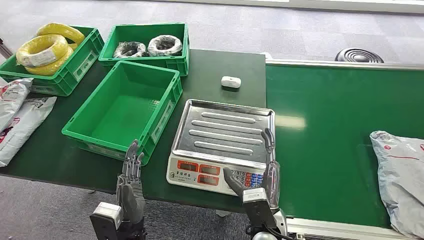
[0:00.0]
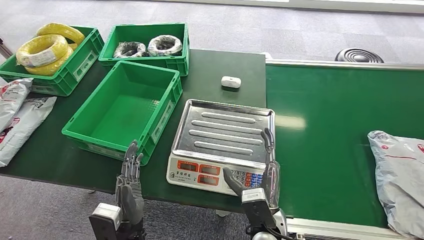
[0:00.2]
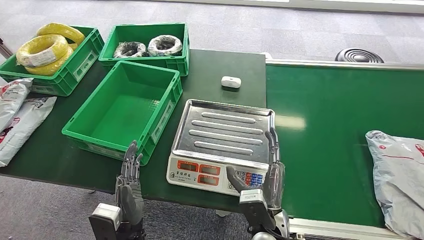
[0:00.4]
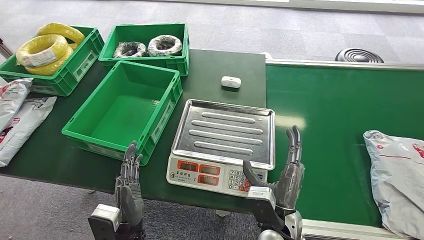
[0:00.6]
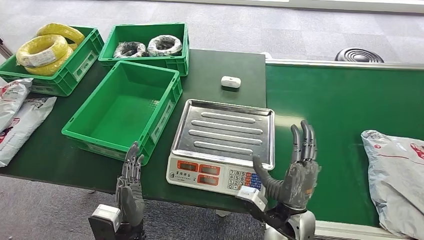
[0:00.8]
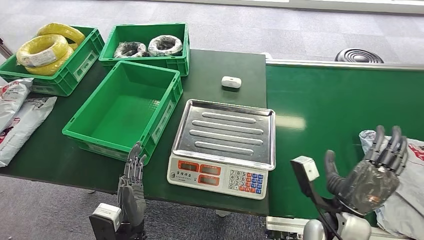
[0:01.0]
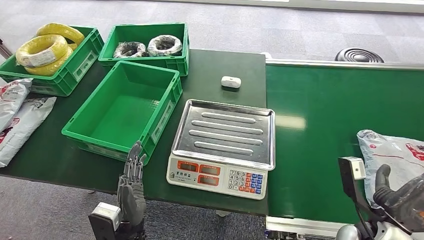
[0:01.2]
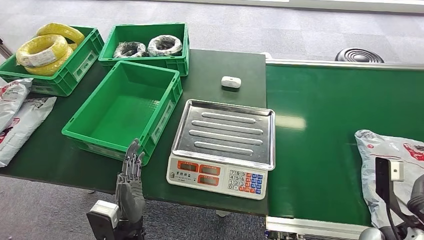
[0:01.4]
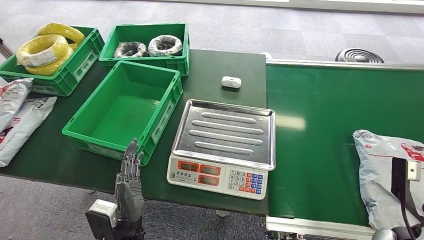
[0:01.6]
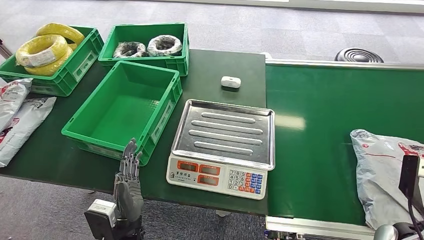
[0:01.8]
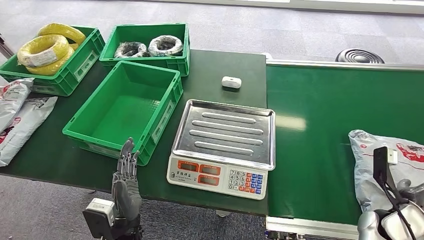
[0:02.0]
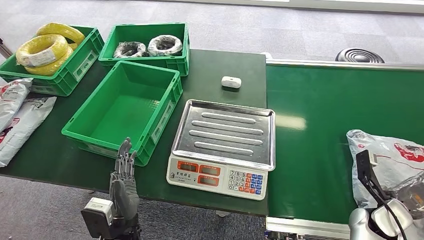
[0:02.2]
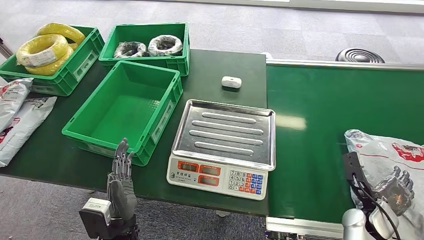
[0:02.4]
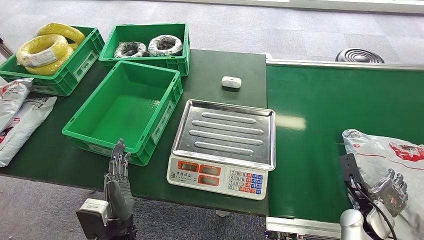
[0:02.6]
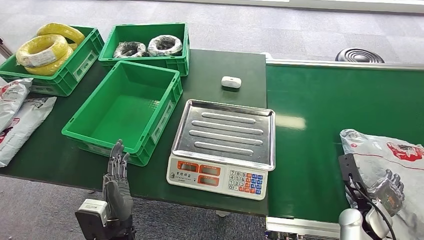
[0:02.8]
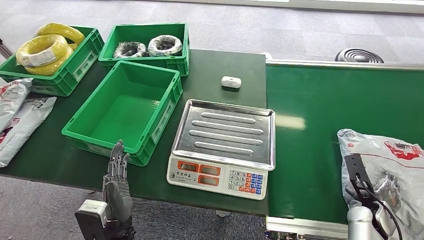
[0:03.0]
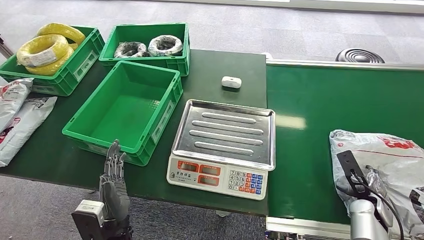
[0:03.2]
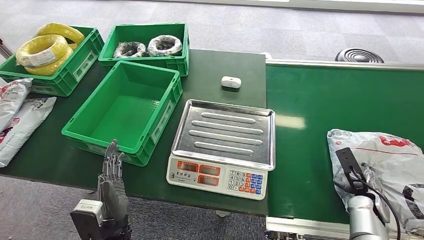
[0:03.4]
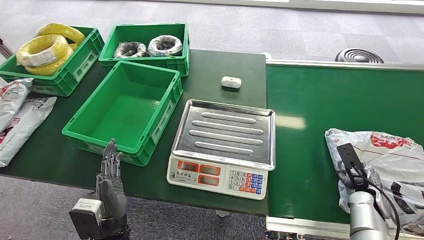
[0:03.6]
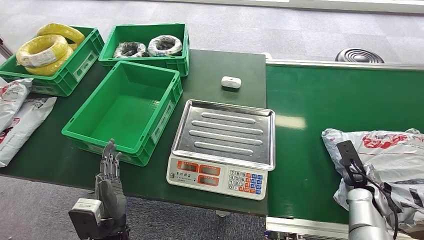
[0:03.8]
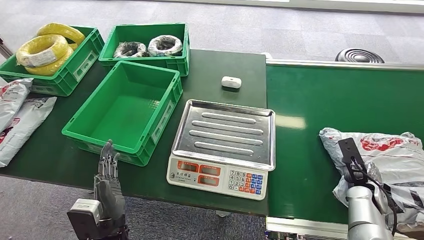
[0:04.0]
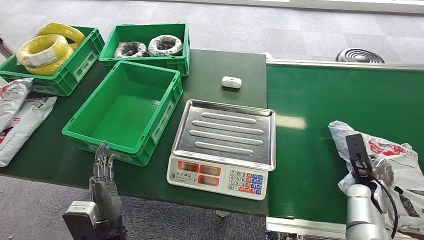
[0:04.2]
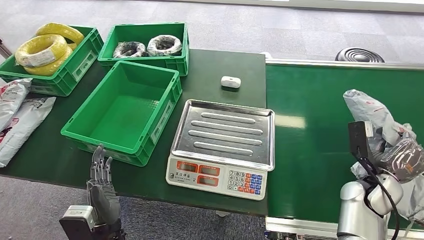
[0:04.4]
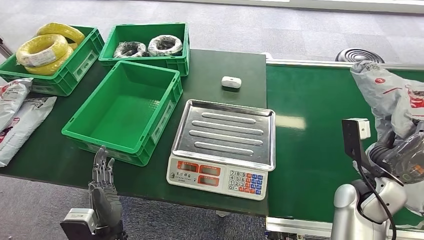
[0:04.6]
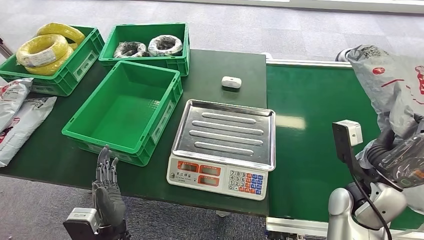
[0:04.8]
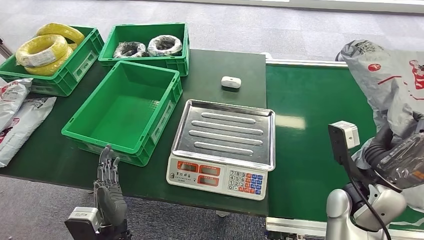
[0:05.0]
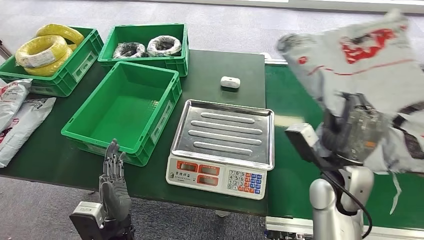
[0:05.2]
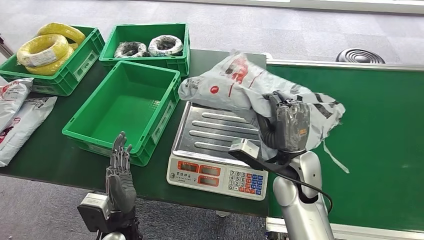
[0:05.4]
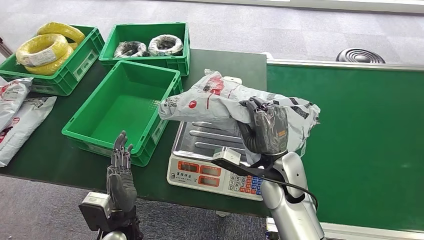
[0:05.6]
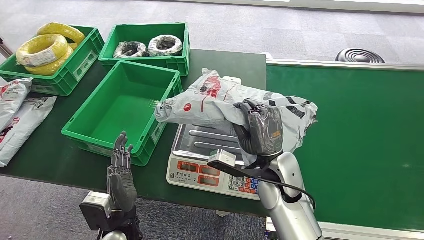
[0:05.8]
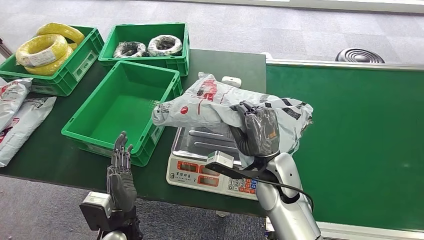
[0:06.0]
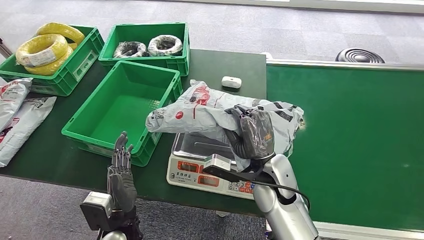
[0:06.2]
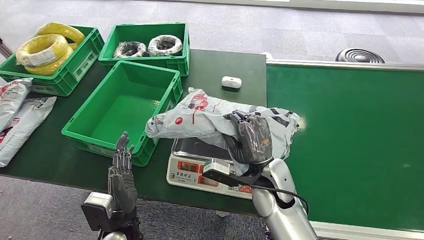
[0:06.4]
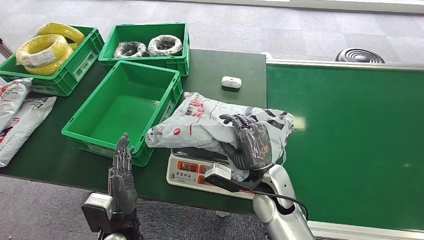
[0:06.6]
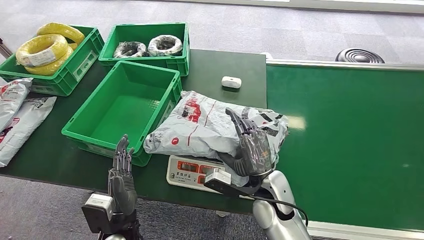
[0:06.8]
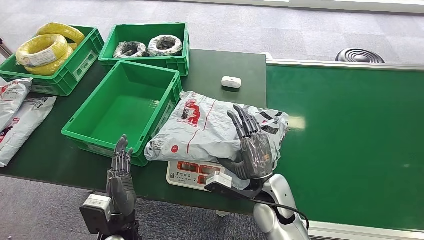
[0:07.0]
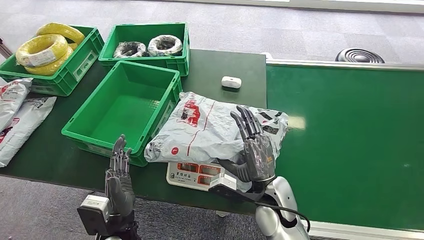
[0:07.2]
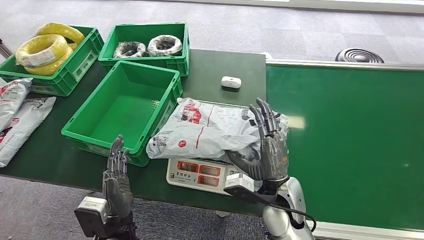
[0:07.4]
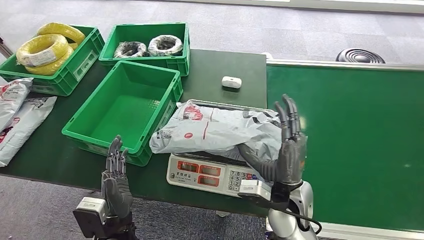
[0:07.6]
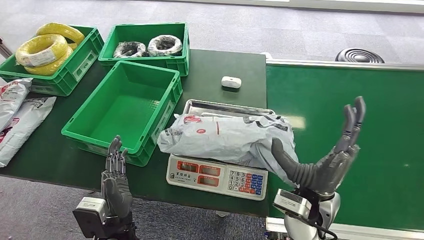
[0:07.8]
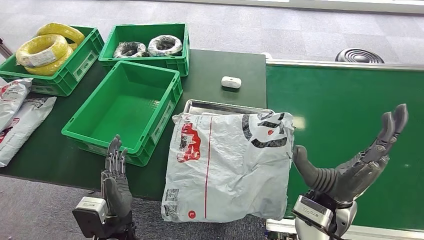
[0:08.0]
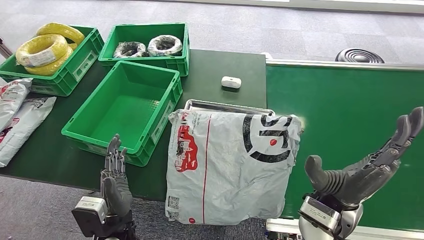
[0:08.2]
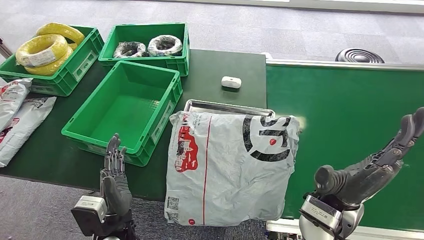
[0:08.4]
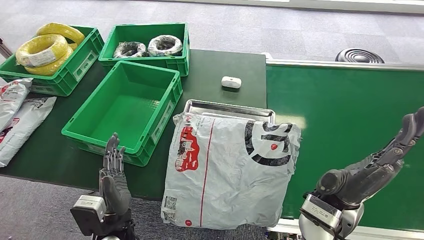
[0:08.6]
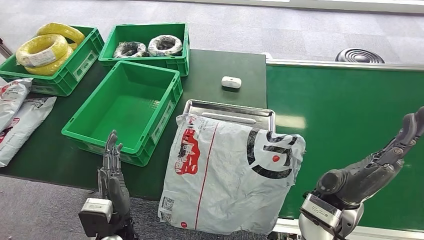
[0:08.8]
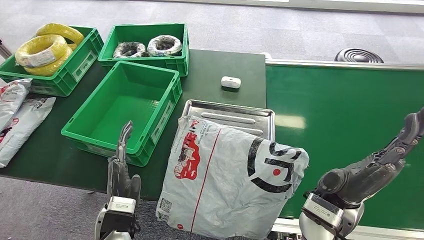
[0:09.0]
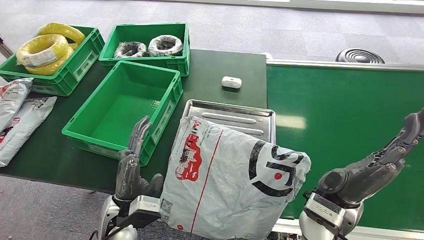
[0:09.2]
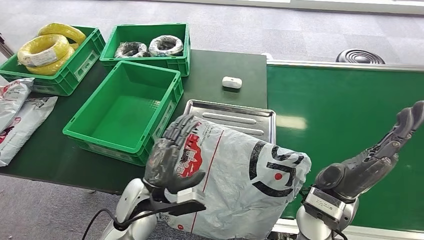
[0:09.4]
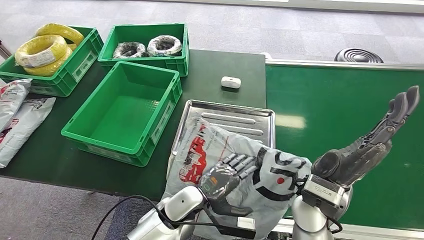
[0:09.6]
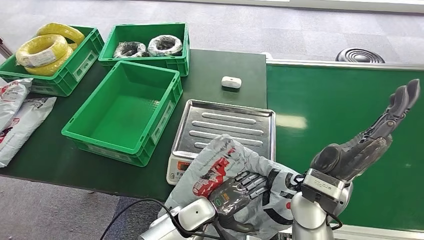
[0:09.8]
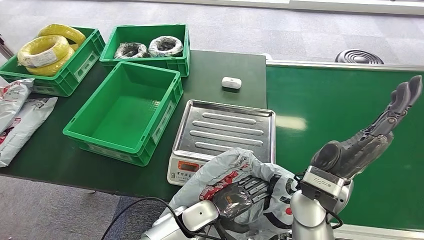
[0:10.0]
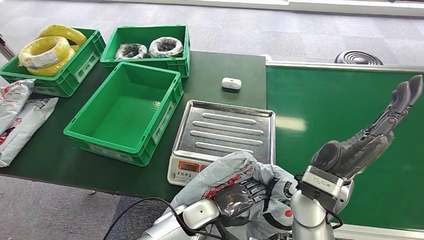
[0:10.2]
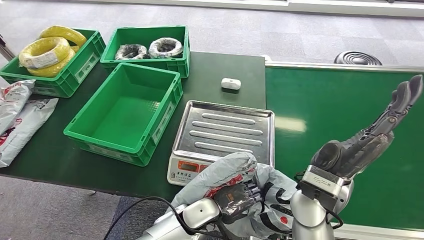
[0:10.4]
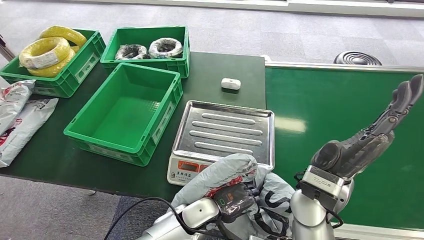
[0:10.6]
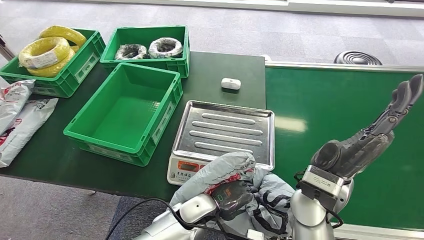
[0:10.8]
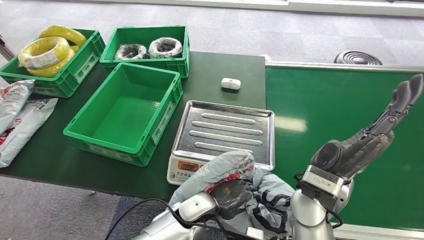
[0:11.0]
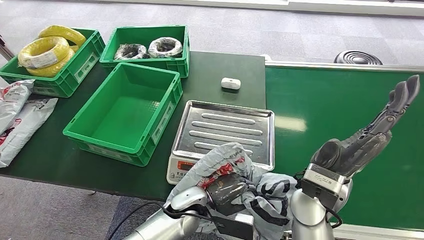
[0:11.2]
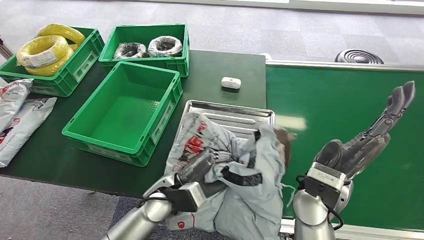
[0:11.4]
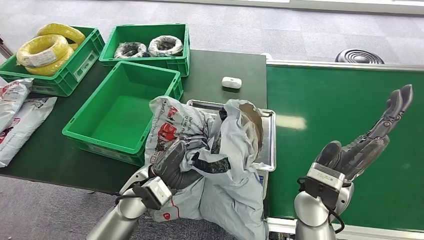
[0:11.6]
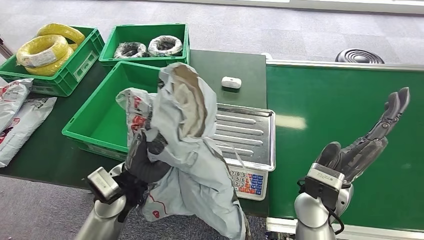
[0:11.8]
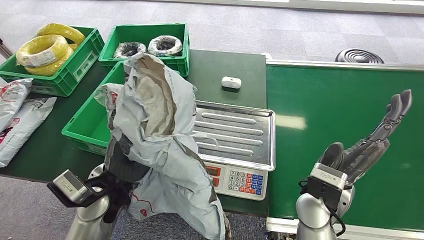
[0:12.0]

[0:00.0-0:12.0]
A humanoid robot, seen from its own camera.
Step, 0:00.0 to 0:04.4: Pick up the package from the conveyor belt.
Step, 0:04.8 to 0:08.2: Place the package onto the inbound machine.
0:01.6 to 0:03.0: The right hand heads downward and forward, covering some 10 cm.
0:03.0 to 0:04.4: The right hand shifts about 10 cm upward.
0:06.0 to 0:07.6: The right hand shifts by approximately 5 cm.

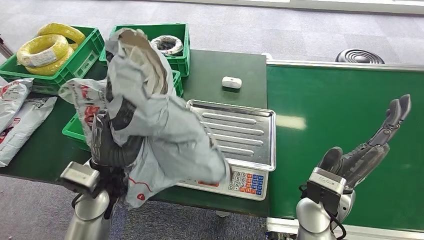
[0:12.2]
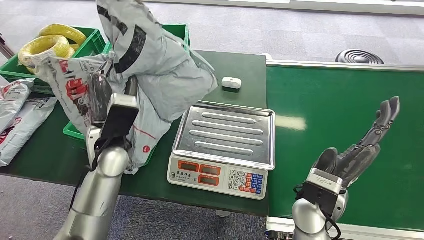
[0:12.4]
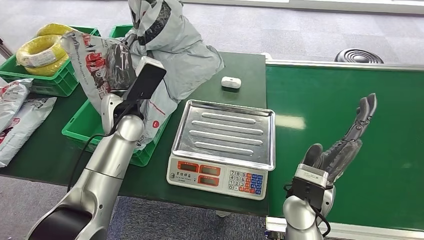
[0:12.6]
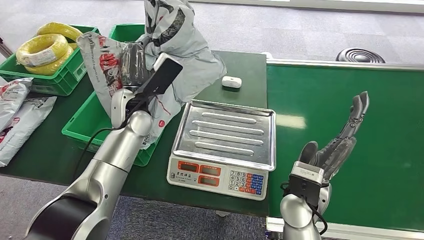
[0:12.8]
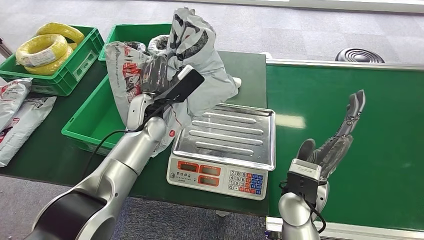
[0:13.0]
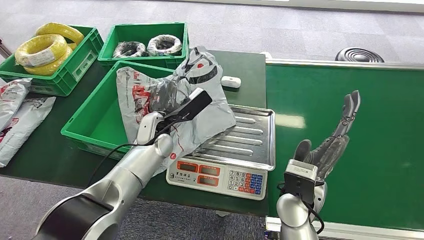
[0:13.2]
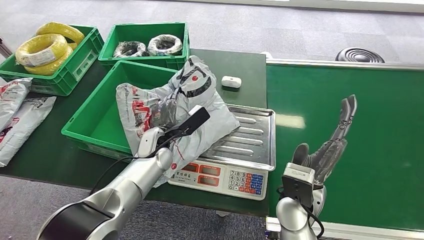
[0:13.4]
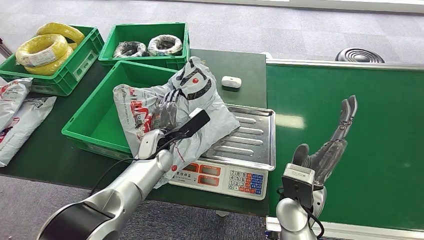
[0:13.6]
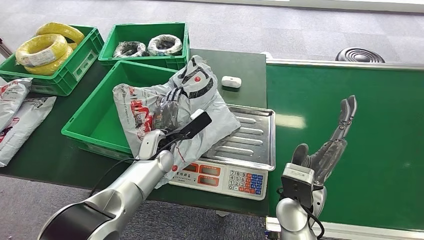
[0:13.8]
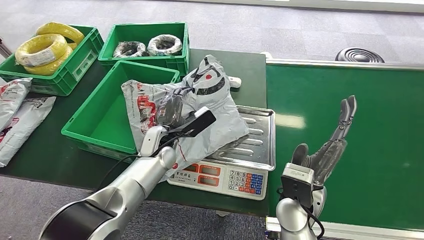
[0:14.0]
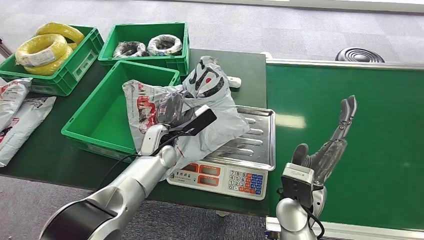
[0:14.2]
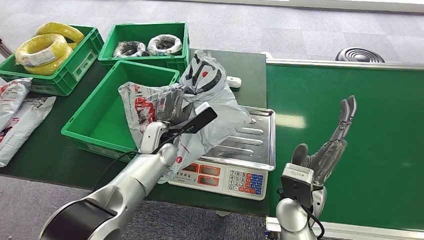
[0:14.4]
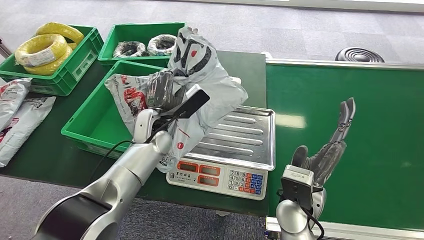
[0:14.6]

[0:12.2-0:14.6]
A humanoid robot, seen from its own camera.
Step, 0:12.6 to 0:14.6: Place the package into the parcel locker.
0:13.4 to 0:14.6: The left hand heads upward, covering roughly 5 cm.

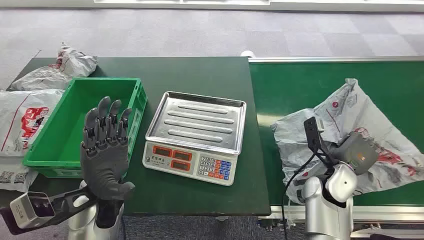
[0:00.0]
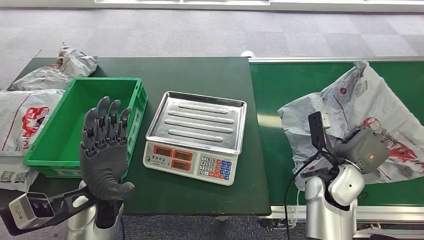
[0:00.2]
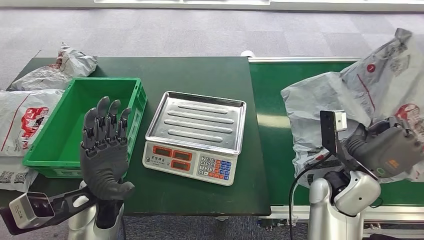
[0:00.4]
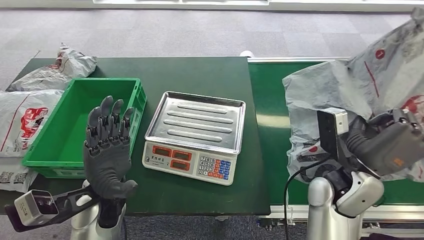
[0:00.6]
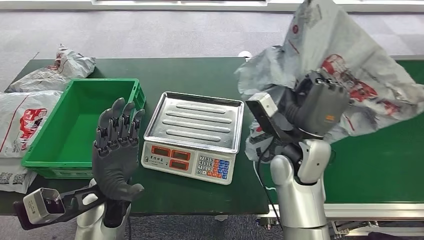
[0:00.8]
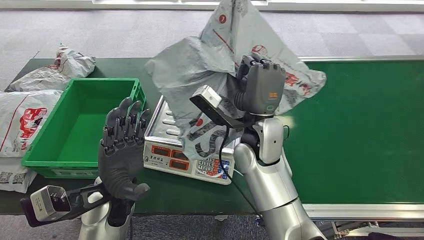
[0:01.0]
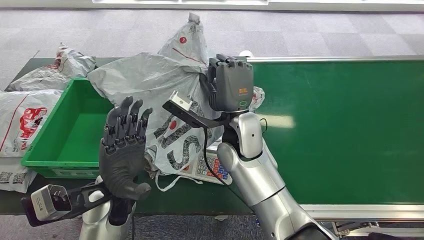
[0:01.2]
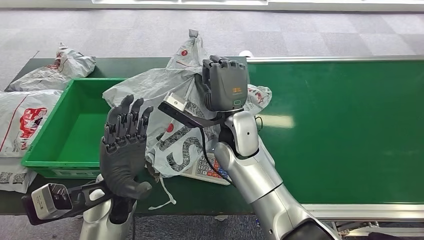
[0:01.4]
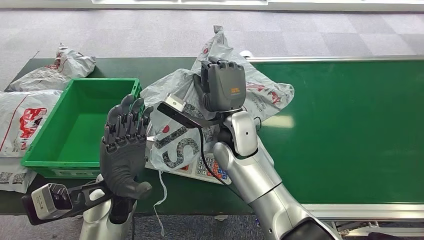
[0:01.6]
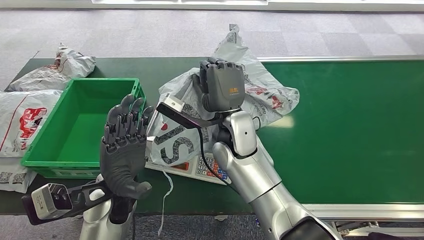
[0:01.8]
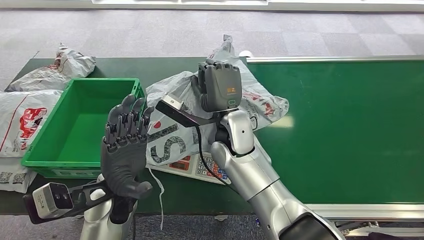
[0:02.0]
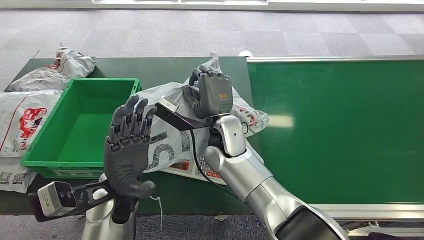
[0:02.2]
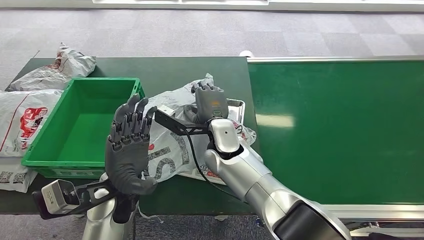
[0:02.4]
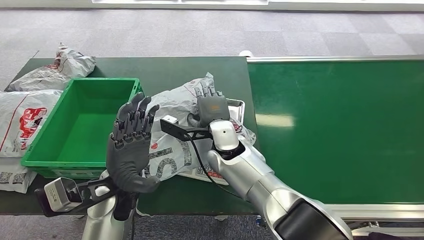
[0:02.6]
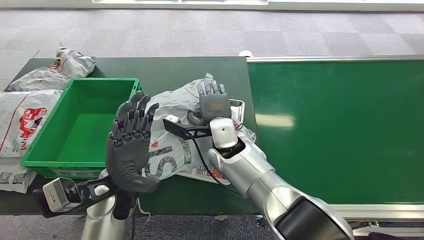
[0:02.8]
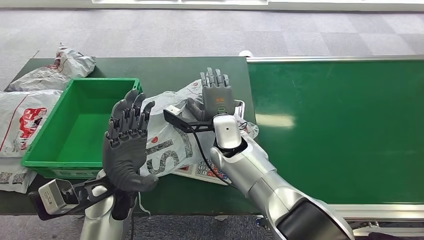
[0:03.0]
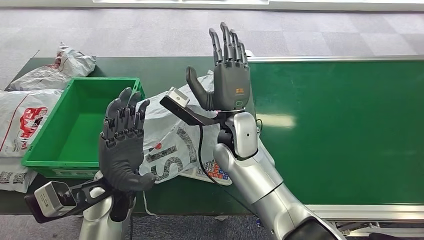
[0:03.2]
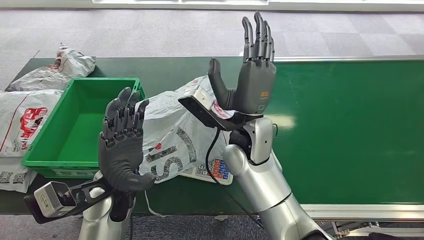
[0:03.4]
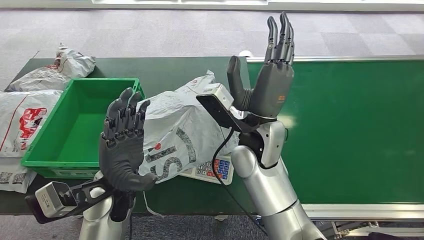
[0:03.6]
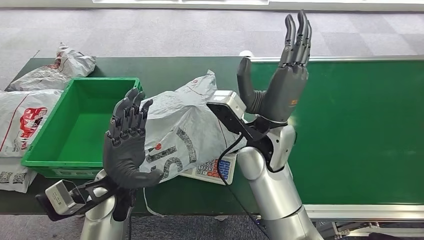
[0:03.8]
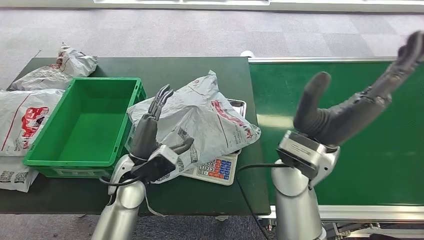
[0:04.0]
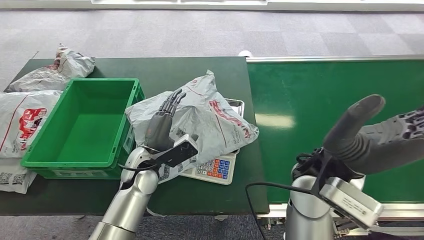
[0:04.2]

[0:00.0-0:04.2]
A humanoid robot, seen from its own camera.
Step, 0:00.0 to 0:00.6: Pick up the package from the conveyor belt.
Step, 0:00.8 to 0:03.6: Place the package onto the inbound machine.
0:01.4 to 0:02.8: The right hand moves downward, approximately 5 cm.
